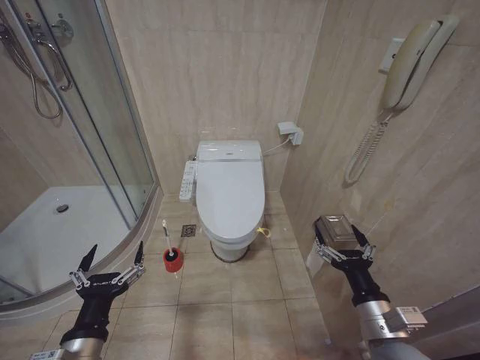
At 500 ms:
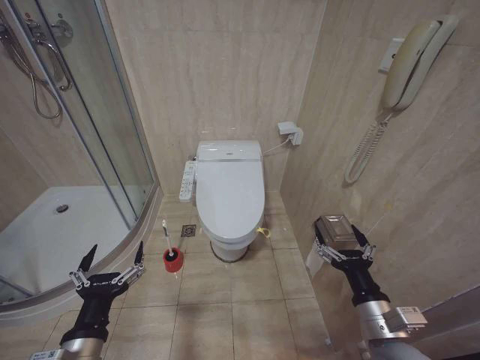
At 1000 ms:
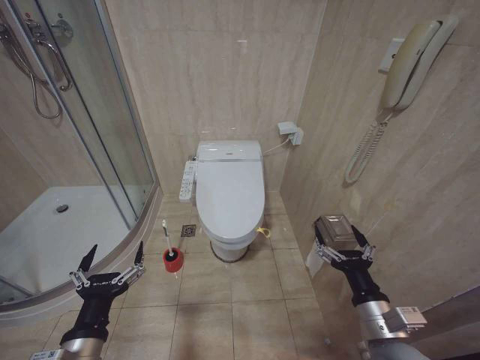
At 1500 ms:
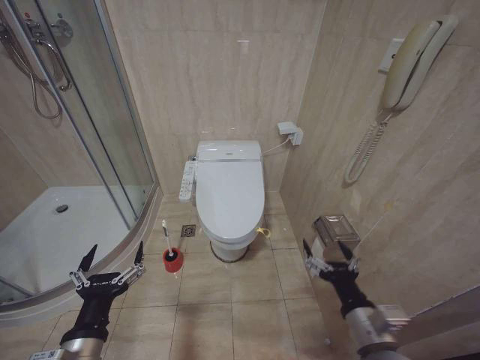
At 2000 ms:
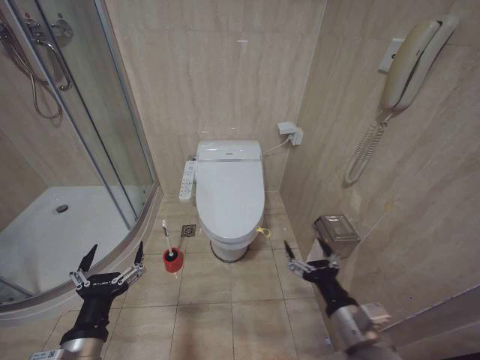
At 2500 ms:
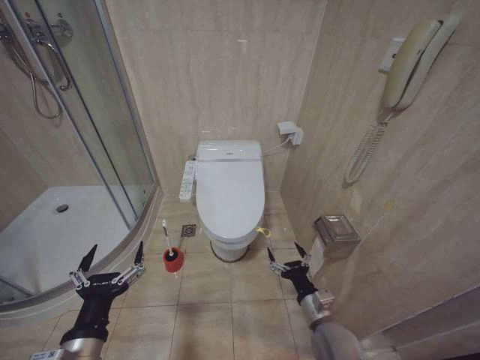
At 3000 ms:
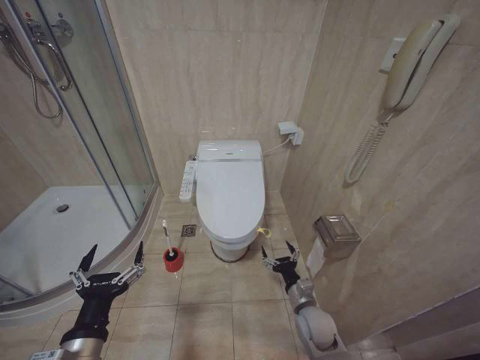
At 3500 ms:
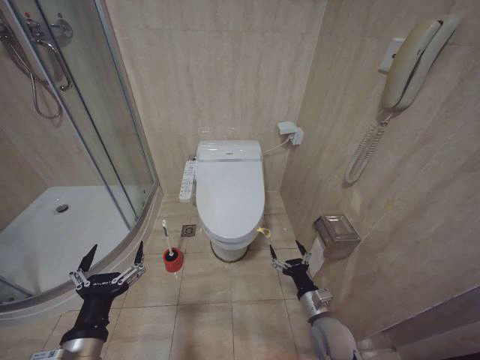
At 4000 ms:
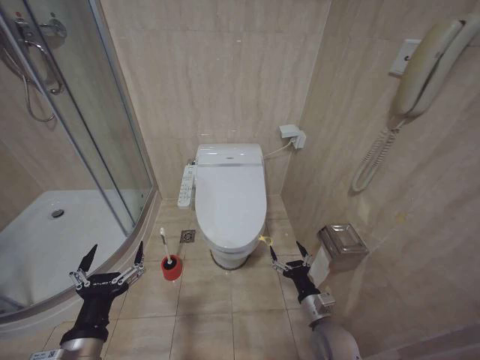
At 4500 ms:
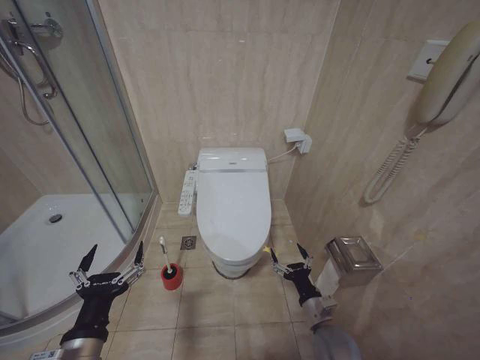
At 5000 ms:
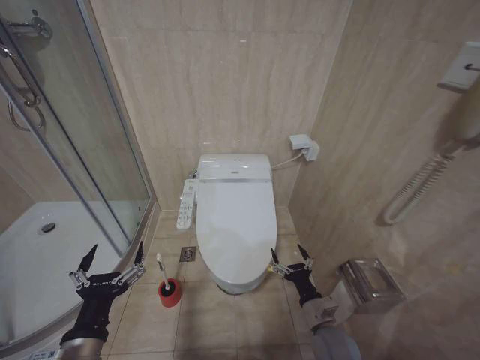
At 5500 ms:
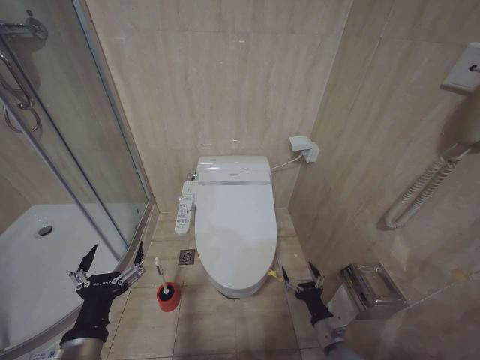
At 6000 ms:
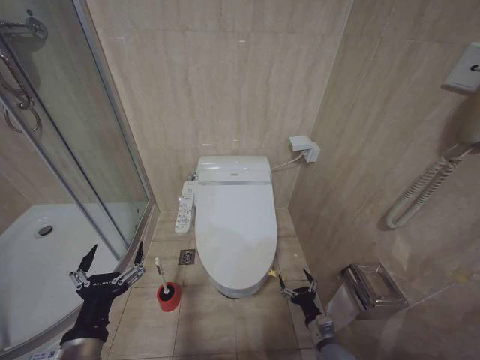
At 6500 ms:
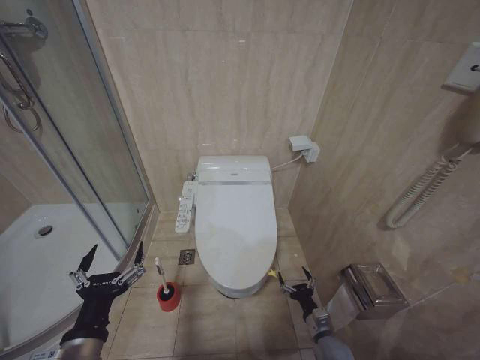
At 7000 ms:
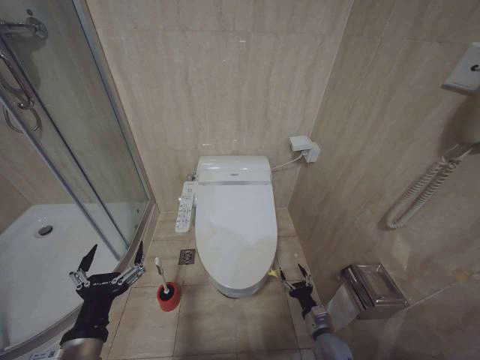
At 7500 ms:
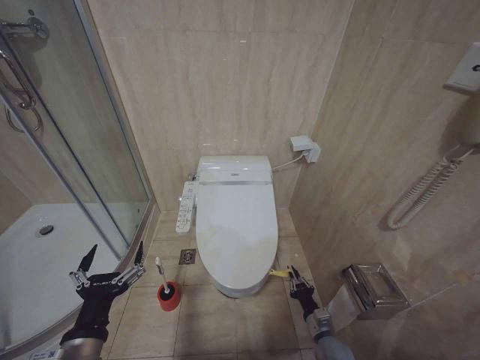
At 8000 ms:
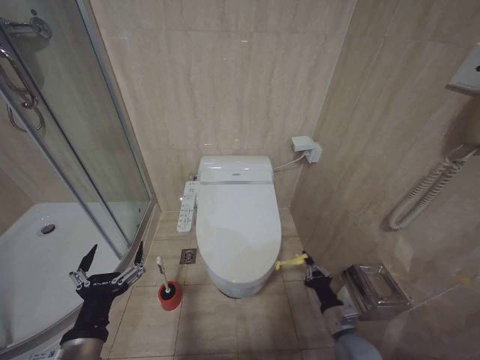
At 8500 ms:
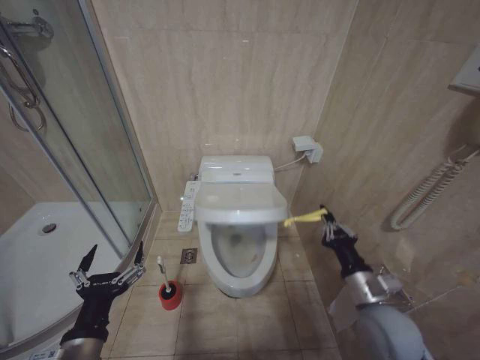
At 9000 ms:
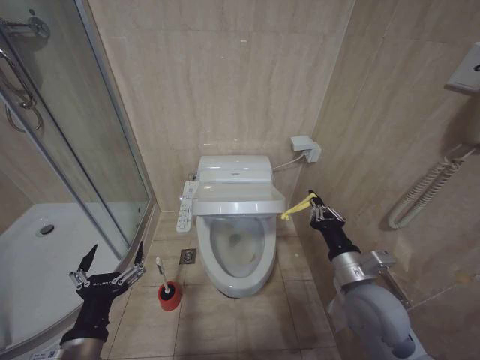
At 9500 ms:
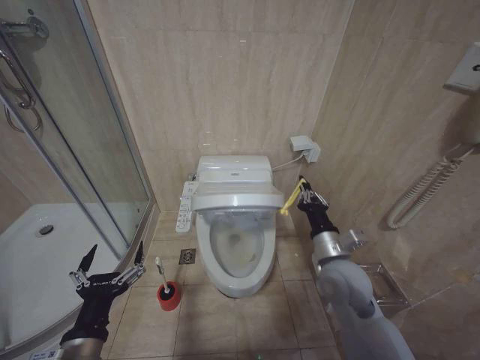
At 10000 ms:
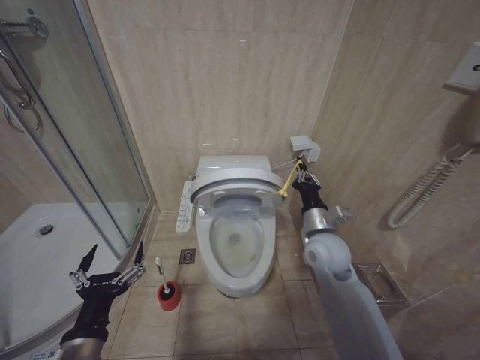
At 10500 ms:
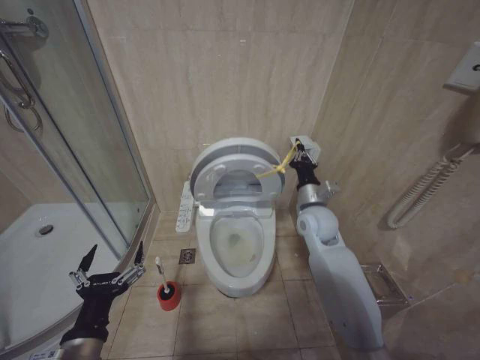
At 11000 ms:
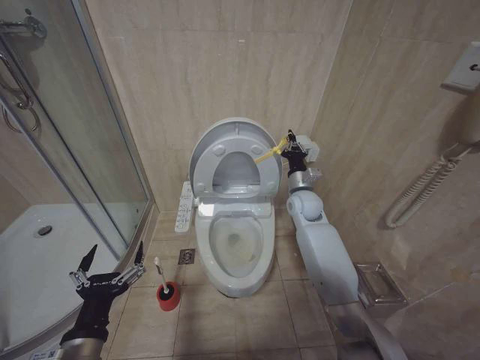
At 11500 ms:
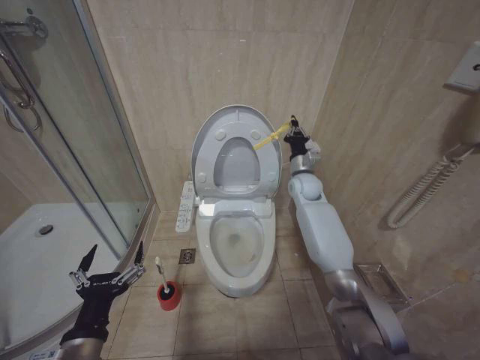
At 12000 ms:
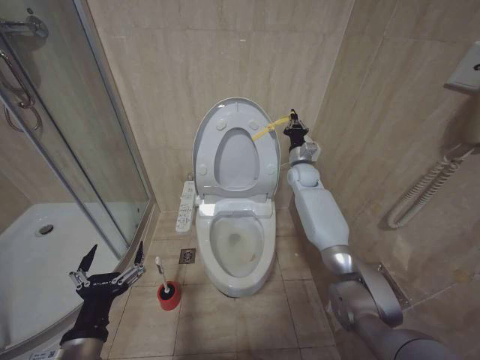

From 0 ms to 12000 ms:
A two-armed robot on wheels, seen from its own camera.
Task of the whole recording: Open the toilet lid, clean the toilet bowl with a toilet brush, close the toilet lid, and flush.
From 2000 ms to 4000 ms: The right gripper is displaced downward and forward by about 15 cm.
From 4000 ms to 6000 ms: The right gripper heads downward, covering approximately 10 cm.
From 6000 ms to 8000 ms: The right gripper shifts by approximately 5 cm, and closes.
From 8000 ms to 10000 ms: The right gripper heads upward and forward, covering approximately 30 cm.
From 10000 ms to 12000 ms: The right gripper shifts approximately 25 cm forward.

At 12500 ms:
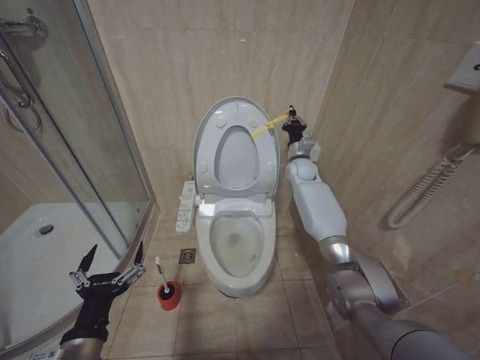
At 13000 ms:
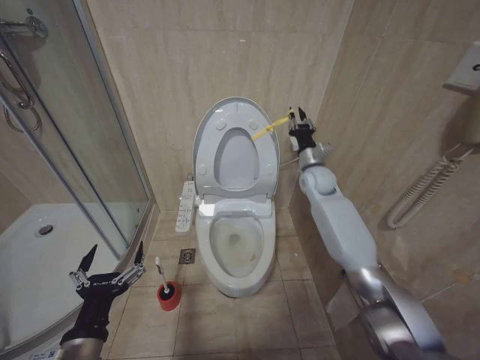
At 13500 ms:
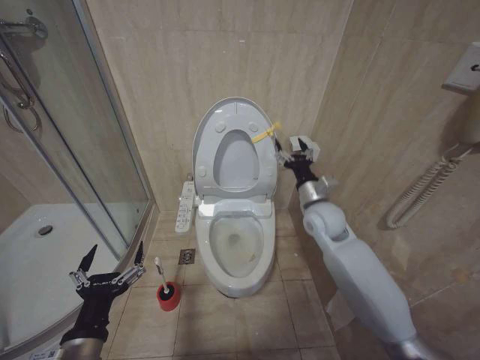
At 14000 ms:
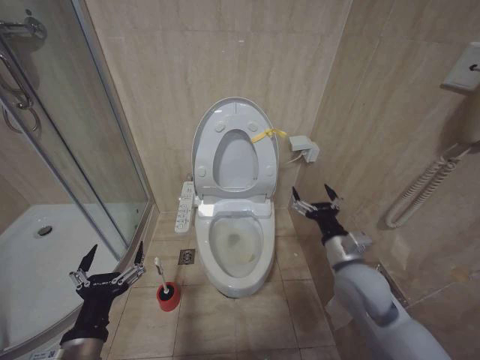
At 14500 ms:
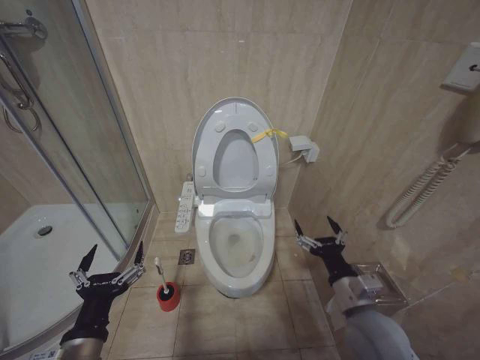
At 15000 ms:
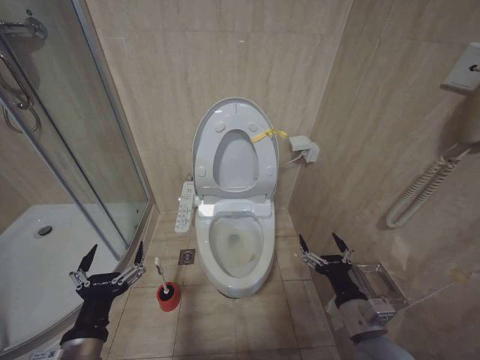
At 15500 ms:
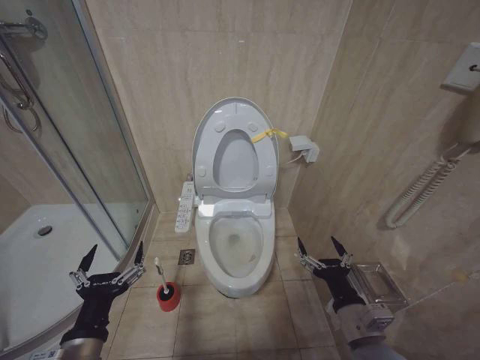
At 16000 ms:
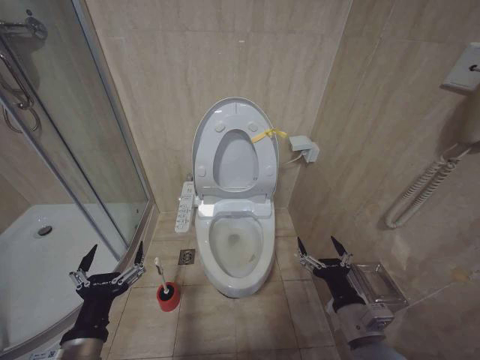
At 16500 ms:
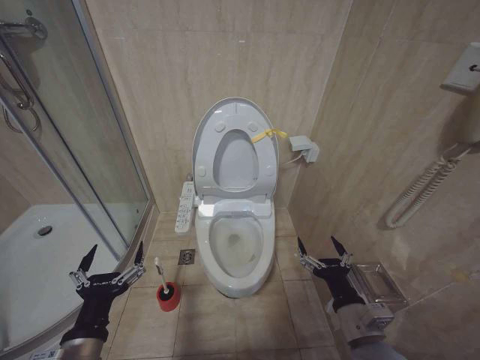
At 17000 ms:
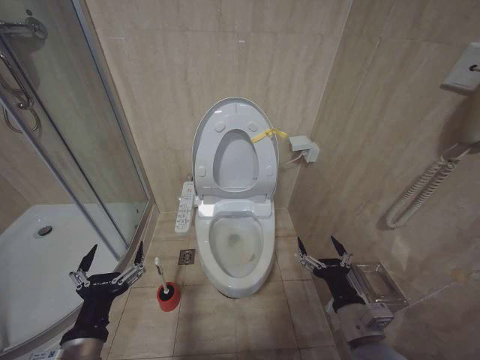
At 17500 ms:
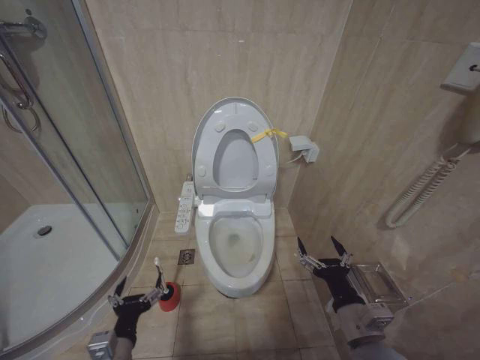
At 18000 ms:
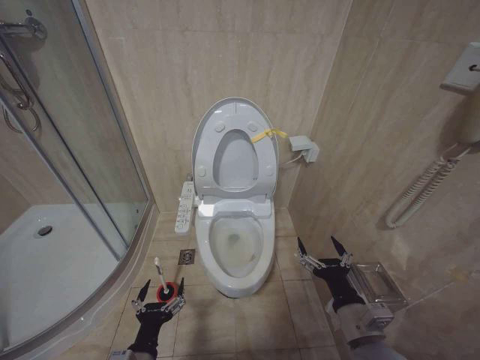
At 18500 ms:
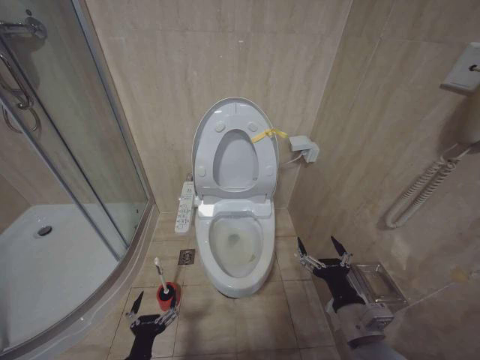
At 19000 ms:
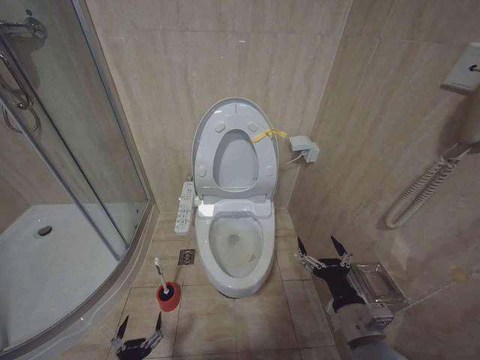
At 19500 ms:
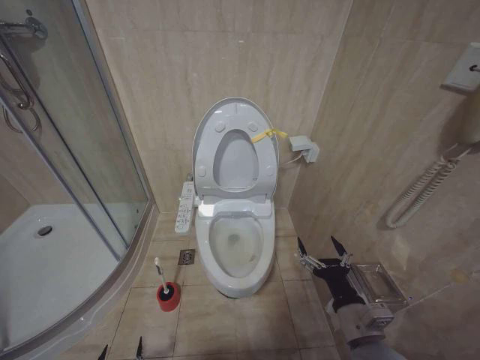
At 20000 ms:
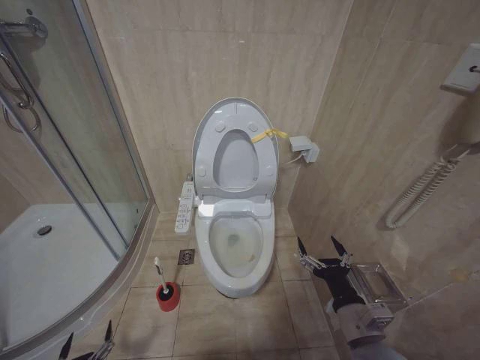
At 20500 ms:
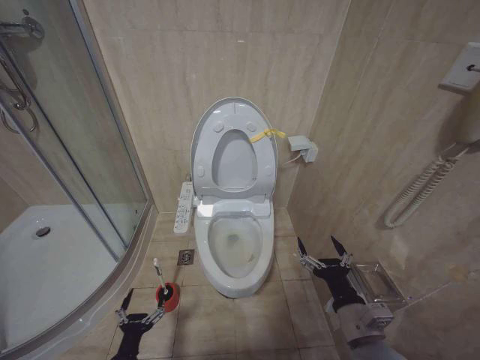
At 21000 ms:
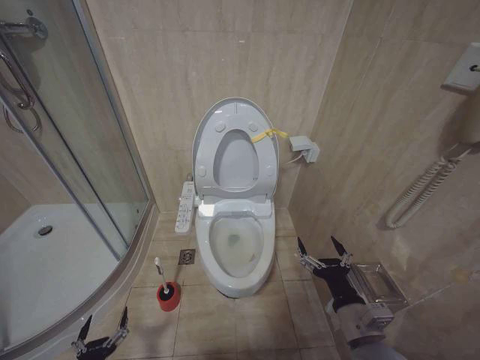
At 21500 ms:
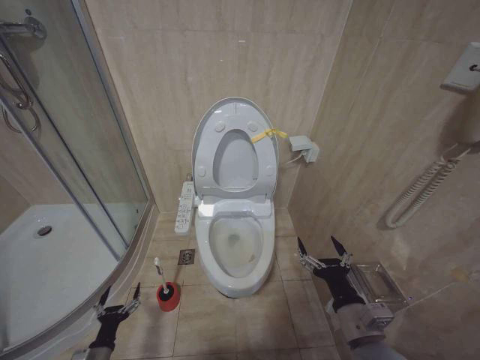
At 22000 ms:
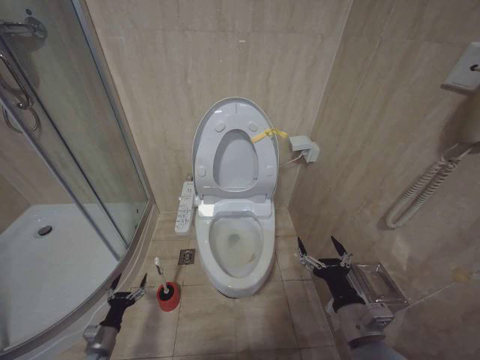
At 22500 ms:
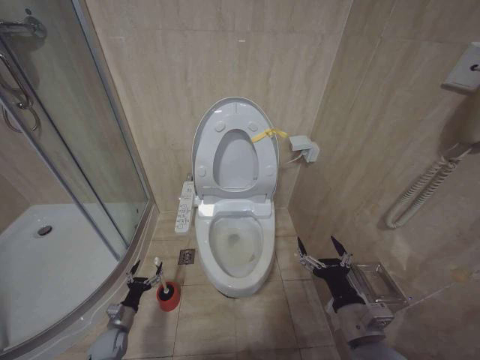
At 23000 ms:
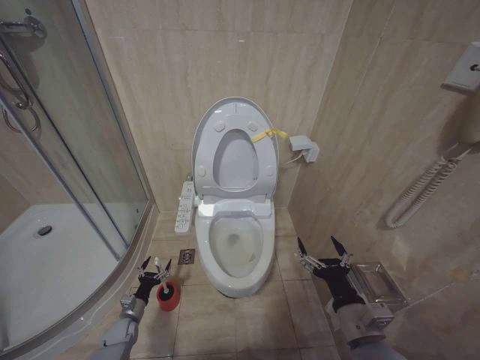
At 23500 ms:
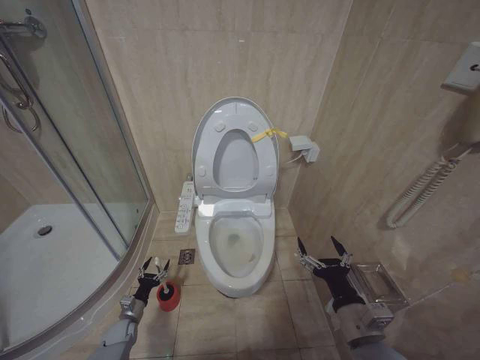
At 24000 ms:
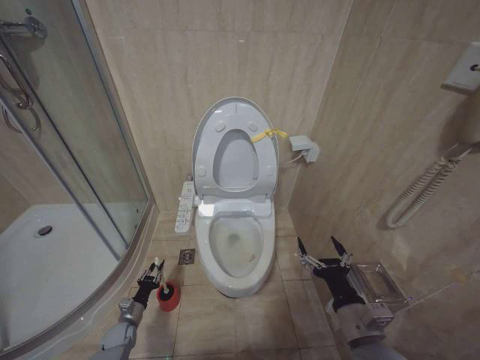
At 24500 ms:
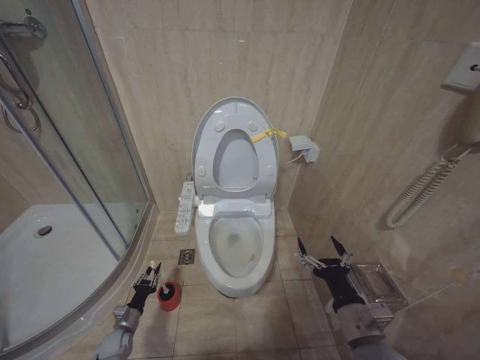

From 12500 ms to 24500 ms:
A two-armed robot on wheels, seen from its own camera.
Task of the whole recording: Open the toilet lid, clean the toilet bowl with a toilet brush, close the toilet lid, and flush.
From 12500 ms to 14500 ms: The right gripper is displaced backward by approximately 40 cm, and opens its fingers.
From 14500 ms to 16500 ms: The right gripper goes roughly 5 cm backward.
From 16500 ms to 18500 ms: The left gripper heads downward, covering approximately 15 cm.
From 18500 ms to 20500 ms: The left gripper travels downward and to the left by some 10 cm.
From 20500 ms to 22500 ms: The left gripper goes approximately 20 cm forward, to the left and downward.
From 22500 ms to 24500 ms: The left gripper closes up.

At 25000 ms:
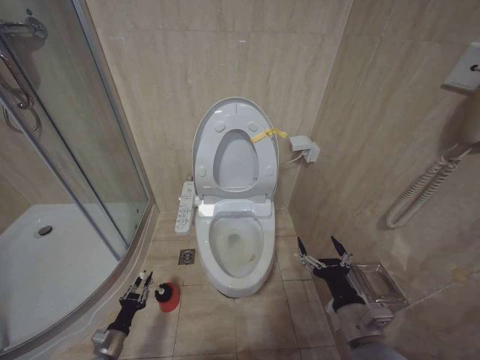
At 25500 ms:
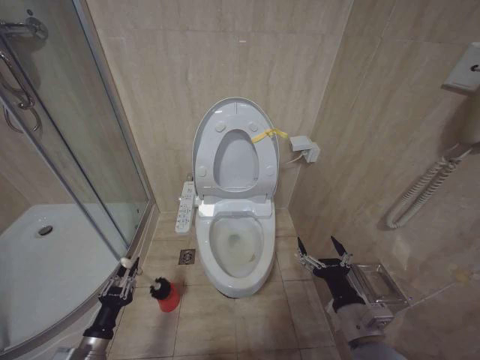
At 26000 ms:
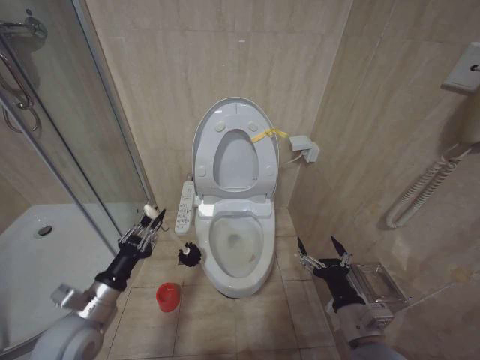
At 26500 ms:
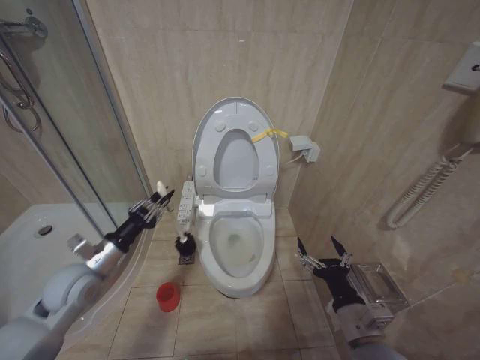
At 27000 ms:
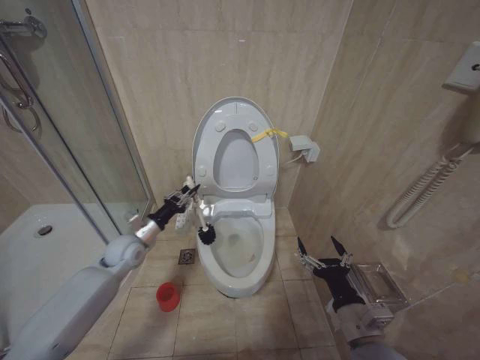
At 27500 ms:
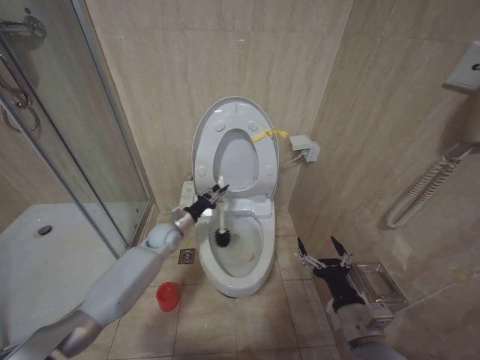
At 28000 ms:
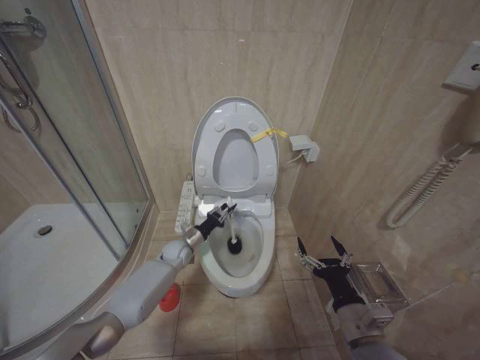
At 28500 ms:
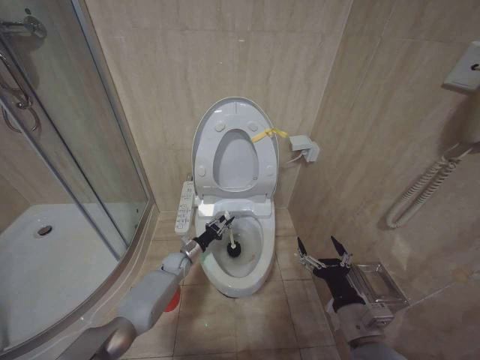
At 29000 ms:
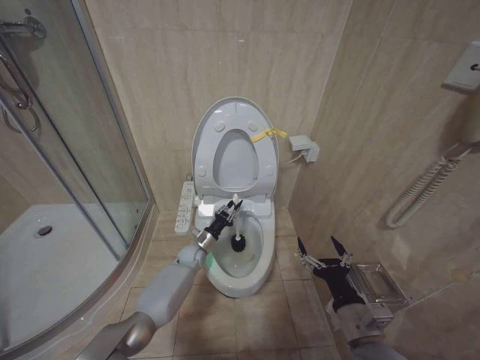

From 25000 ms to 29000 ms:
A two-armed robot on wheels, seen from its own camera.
Task of the whole recording: Open the toilet lid, clean the toilet bowl with a toilet brush, close the toilet lid, and flush.
From 25000 ms to 27000 ms: The left gripper travels upward and forward by some 35 cm.
From 27000 ms to 29000 ms: The left gripper moves downward, to the right and forward, some 25 cm.
